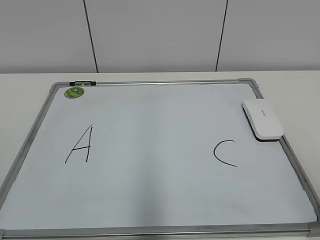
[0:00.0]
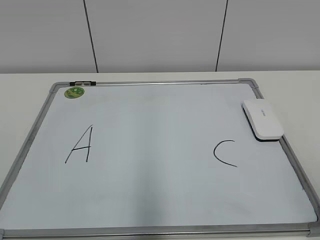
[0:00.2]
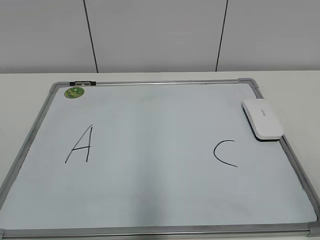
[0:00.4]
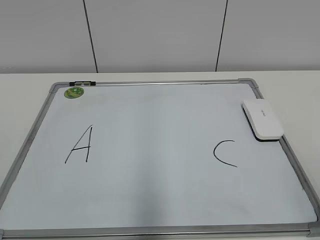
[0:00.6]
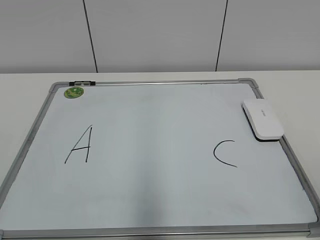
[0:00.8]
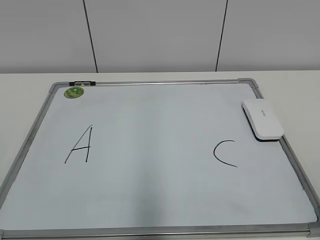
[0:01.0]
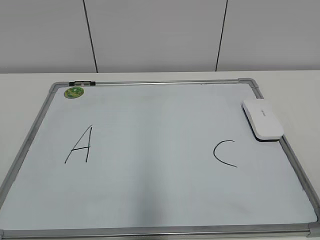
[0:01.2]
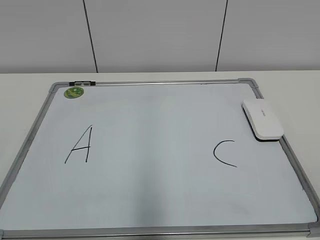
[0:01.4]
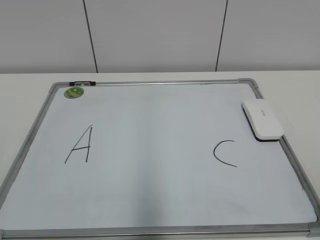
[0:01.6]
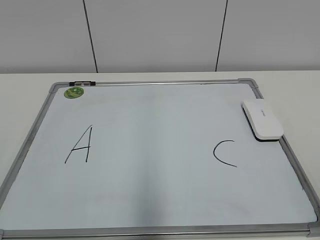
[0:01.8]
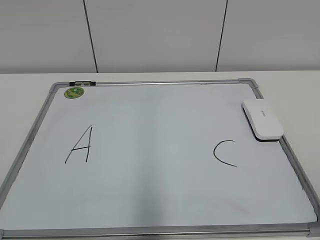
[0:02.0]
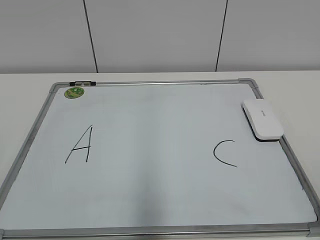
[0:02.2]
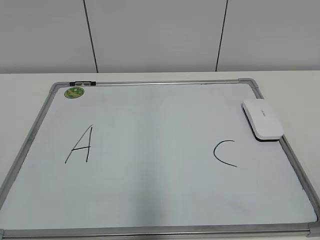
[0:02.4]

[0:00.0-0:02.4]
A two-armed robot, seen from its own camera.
Task of the whole recording: pick up the eraser on the blackboard and erase the letter "B".
0:01.2 to 0:02.4: Neither gripper changes place.
